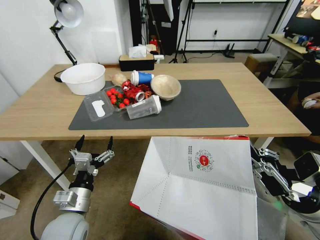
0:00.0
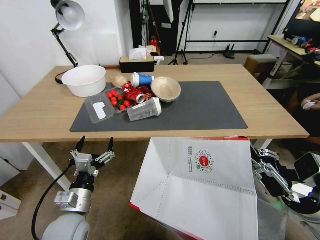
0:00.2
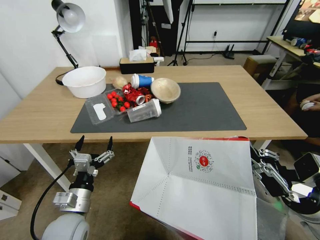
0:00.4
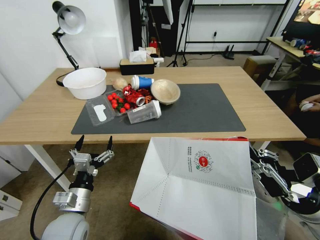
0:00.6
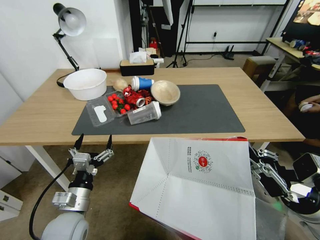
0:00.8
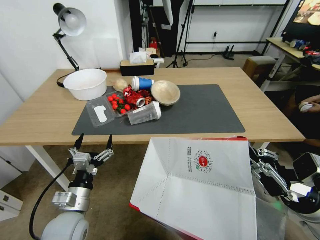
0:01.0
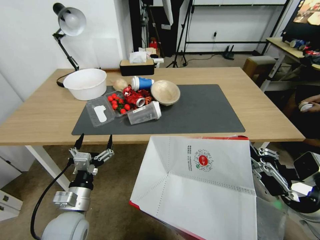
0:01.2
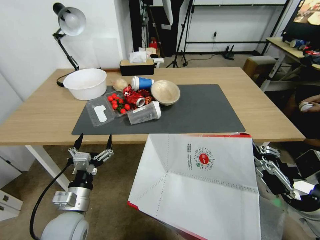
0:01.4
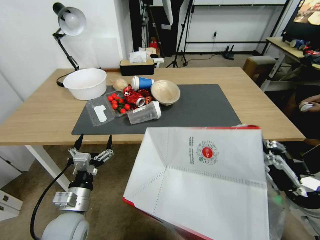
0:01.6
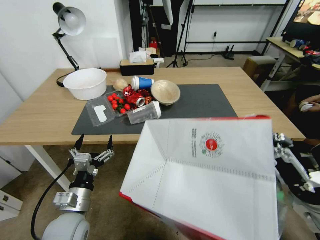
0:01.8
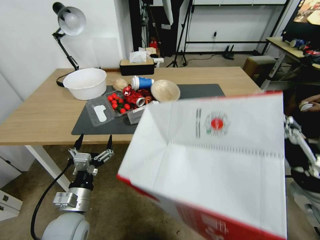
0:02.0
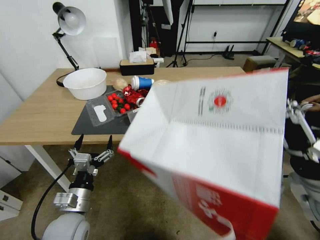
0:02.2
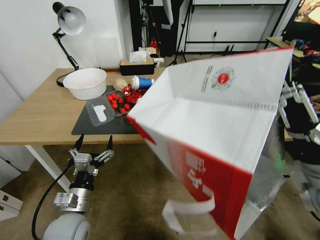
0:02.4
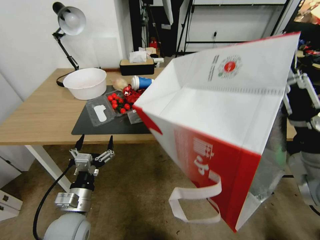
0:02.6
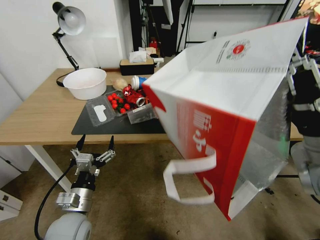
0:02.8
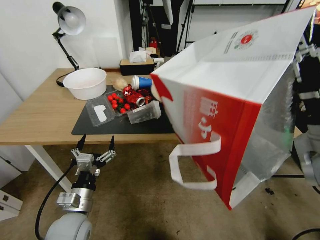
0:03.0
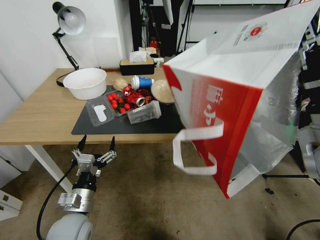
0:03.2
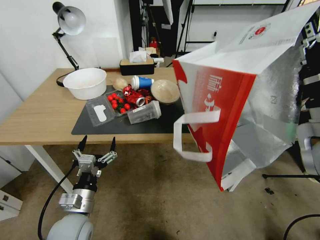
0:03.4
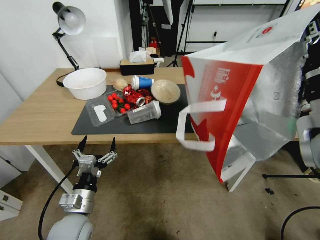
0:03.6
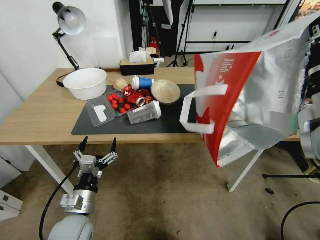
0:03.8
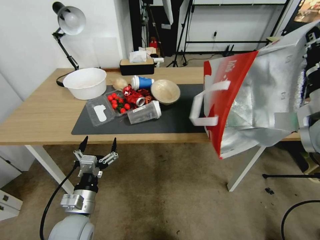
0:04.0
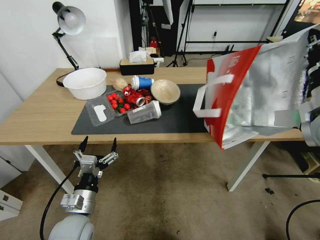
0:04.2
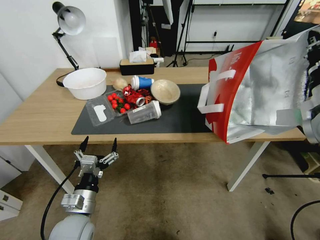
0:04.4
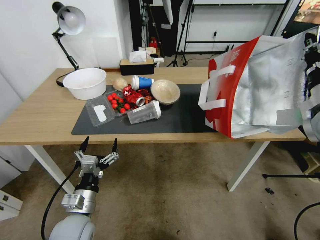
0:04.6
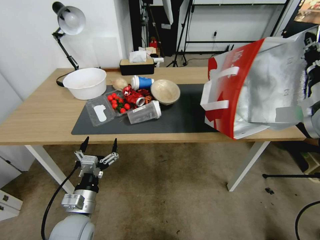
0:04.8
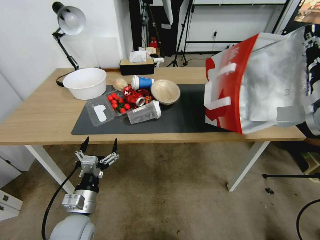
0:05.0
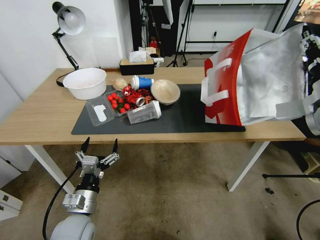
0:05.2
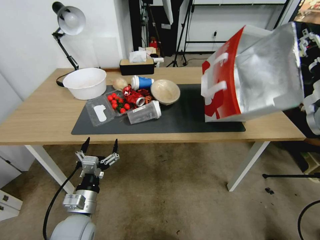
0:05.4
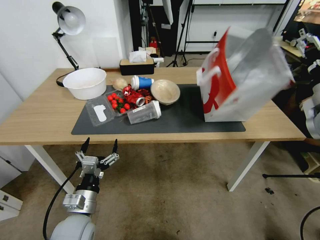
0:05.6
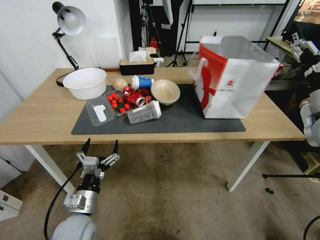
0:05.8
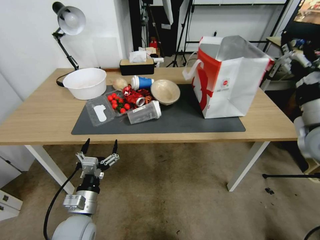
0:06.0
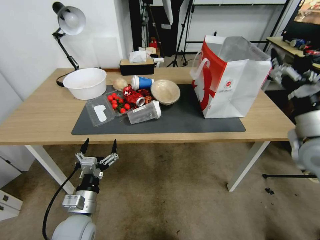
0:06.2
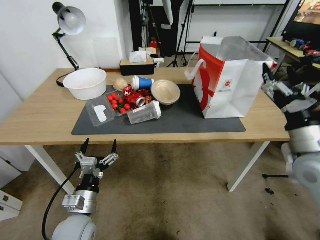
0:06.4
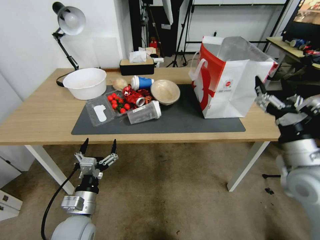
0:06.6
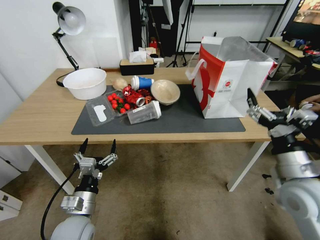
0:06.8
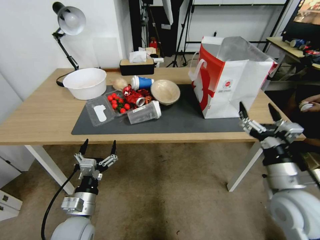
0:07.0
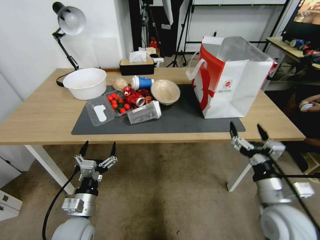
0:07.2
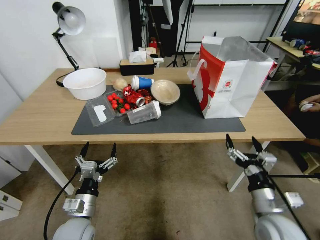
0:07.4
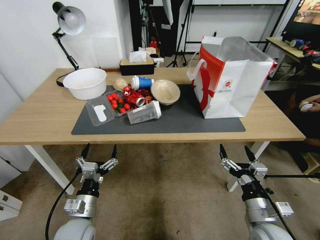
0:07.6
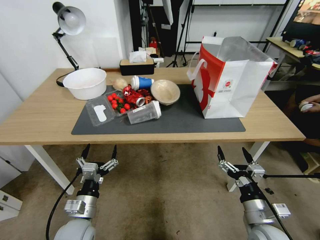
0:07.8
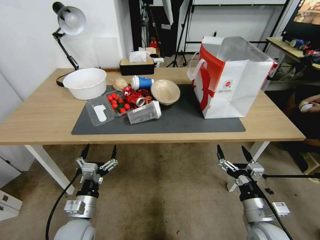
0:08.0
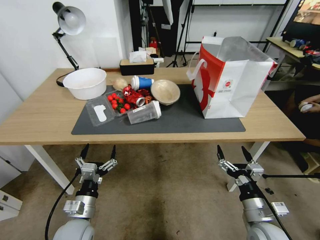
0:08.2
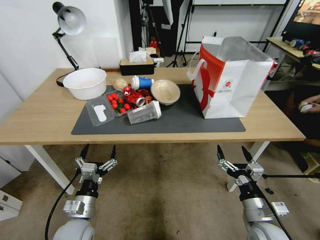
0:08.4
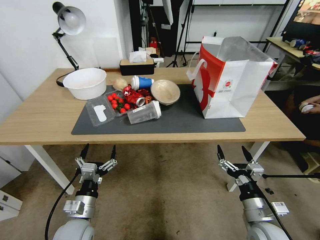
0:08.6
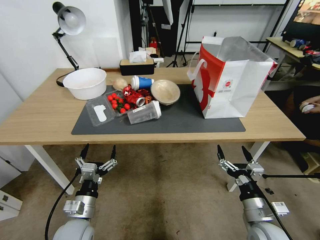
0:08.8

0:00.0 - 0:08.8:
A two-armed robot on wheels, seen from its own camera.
Task of the whole recording: Pick up the food delivery bag from the floor and place it on the table.
0:01.4 - 0:03.0: The right gripper heads upward, covering some 10 cm.
0:03.0 - 0:04.4: The right gripper goes some 10 cm forward and to the right.
0:04.4 - 0:05.8: The right gripper opens its fingers.
0:05.8 - 0:07.4: The right gripper is displaced downward, backward and to the left by some 30 cm.
0:07.4 - 0:08.8: There are only small adjustments of the grippers.

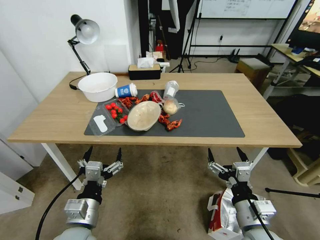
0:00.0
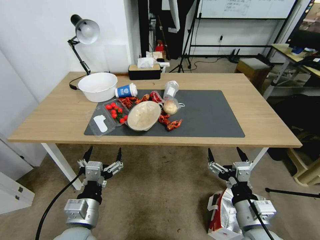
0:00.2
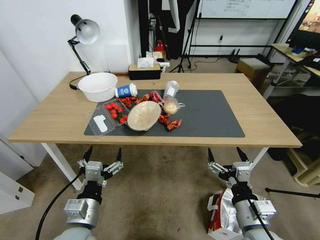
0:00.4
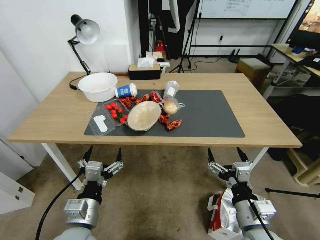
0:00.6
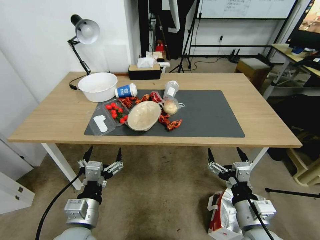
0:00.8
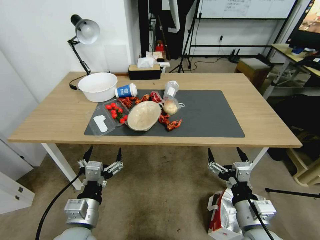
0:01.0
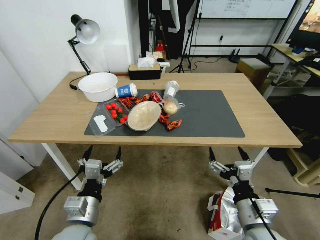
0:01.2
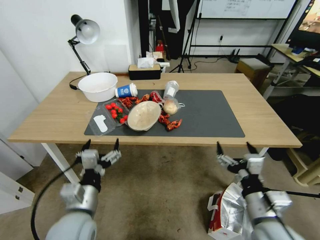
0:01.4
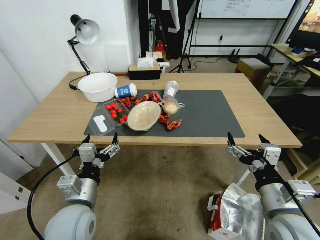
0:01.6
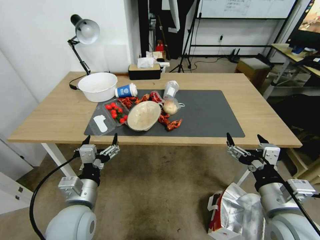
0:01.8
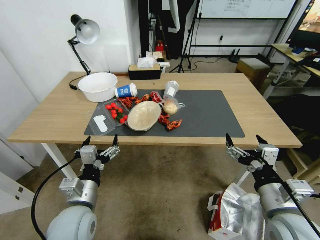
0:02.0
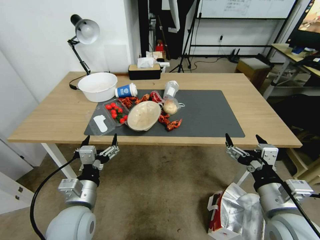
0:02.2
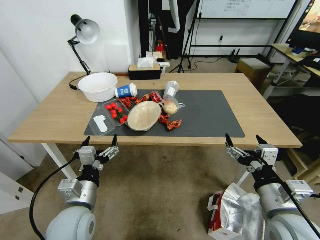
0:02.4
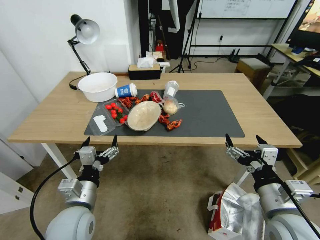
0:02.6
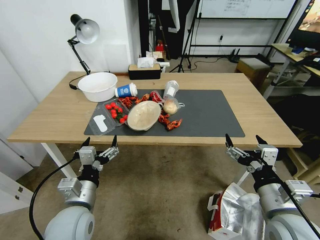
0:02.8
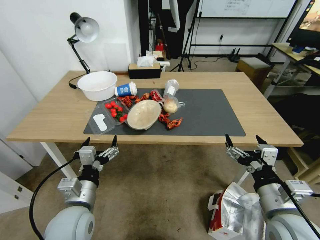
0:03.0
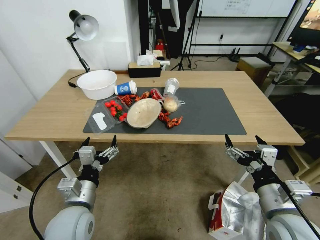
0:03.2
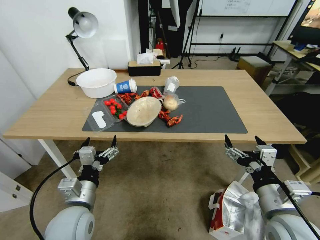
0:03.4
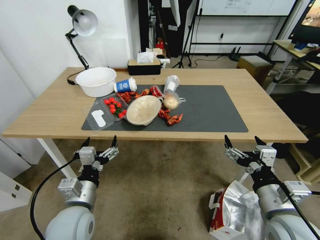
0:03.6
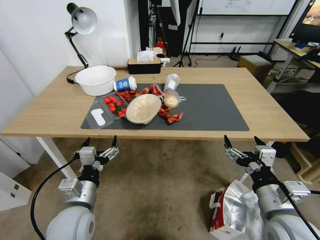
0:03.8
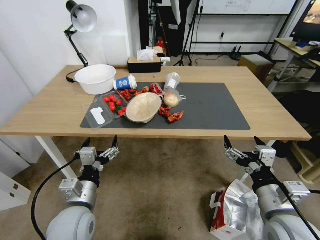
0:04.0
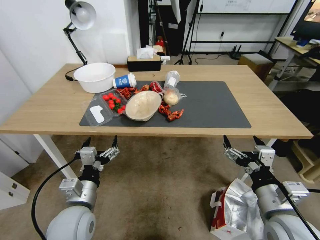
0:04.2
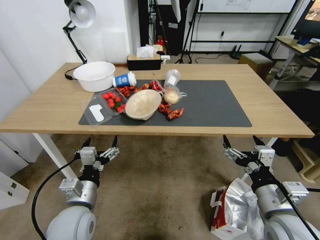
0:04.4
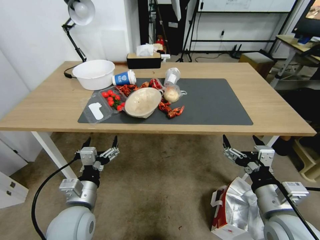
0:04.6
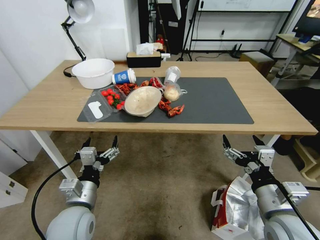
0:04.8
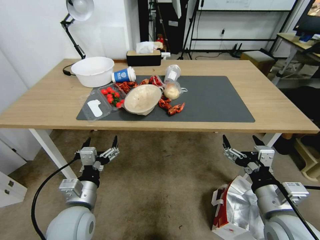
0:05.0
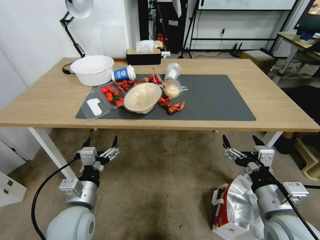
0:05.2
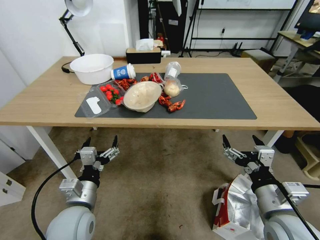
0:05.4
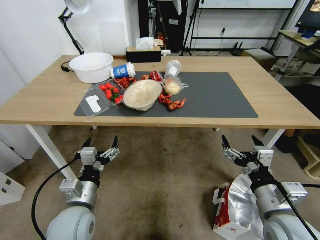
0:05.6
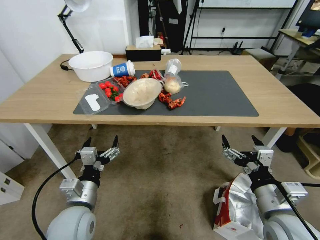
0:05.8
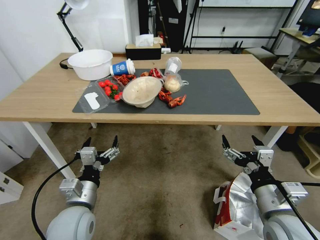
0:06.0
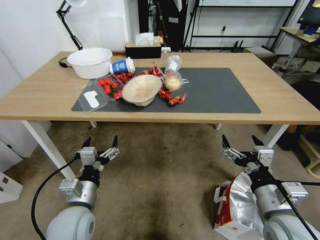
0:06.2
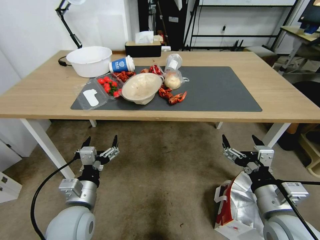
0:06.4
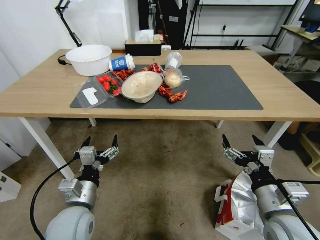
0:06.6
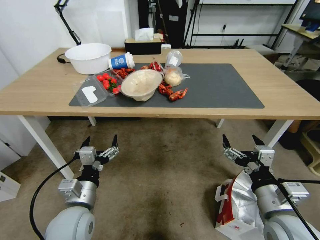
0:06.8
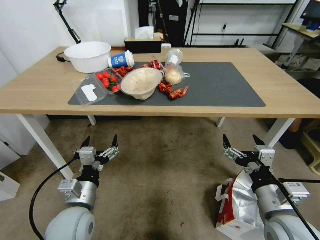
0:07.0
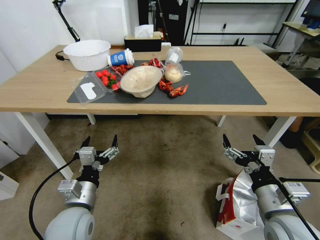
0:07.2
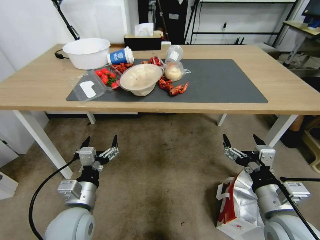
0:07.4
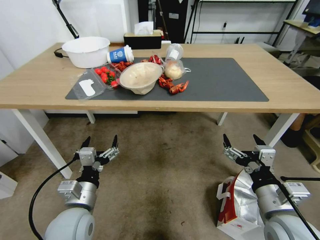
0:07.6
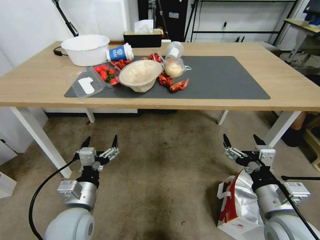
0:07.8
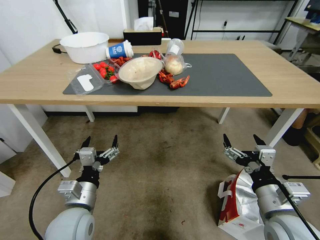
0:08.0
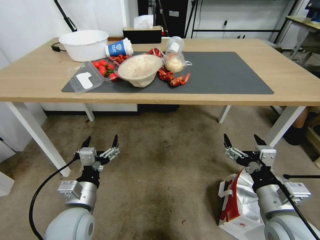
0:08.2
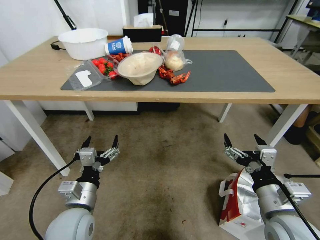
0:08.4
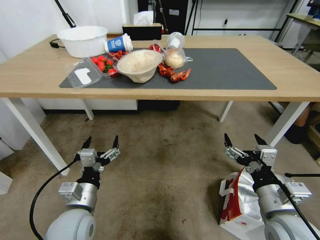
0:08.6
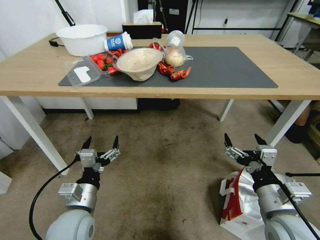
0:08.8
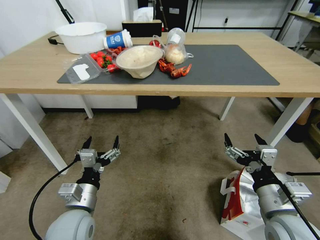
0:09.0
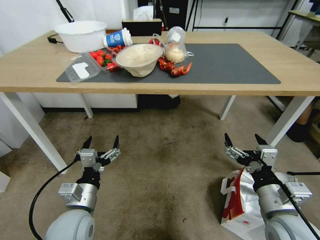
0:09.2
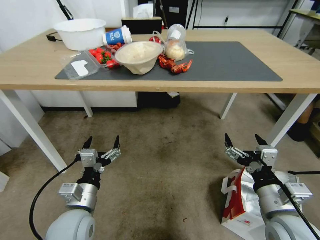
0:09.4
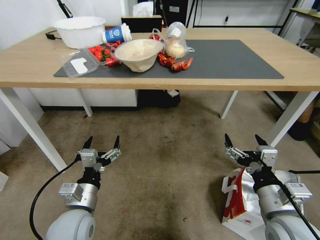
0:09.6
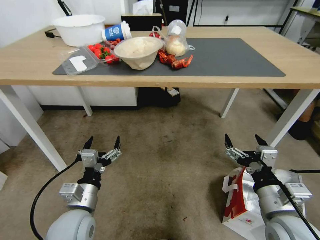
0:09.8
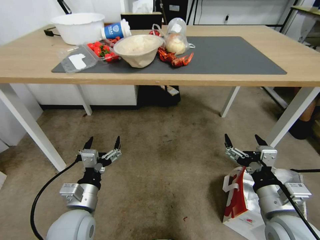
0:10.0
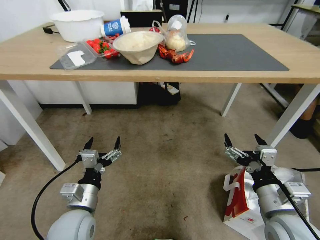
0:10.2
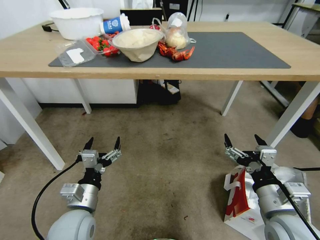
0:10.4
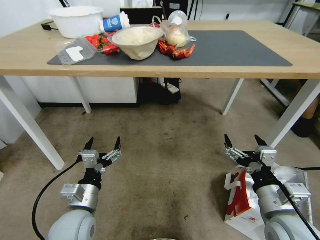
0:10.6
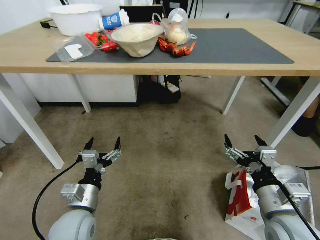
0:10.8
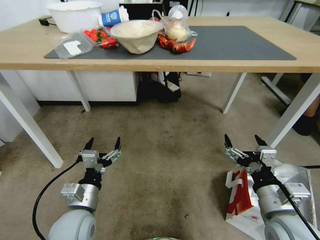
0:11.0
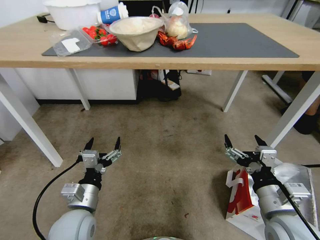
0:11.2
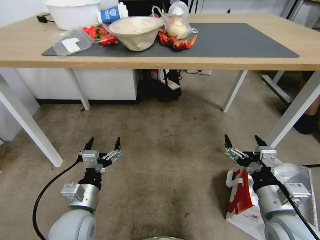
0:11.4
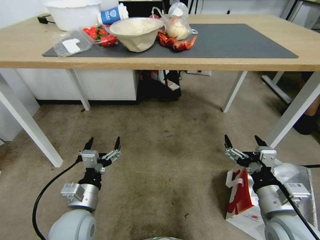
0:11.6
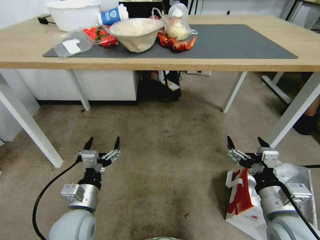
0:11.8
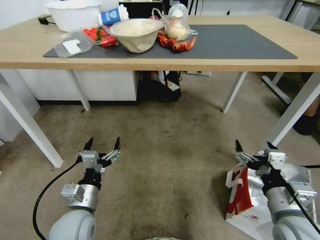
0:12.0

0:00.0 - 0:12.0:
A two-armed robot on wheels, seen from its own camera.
Task of the whole recording: Pick up the food delivery bag from the floor and place it on the table.
0:01.6 - 0:03.0: There are only small adjustments of the grippers.

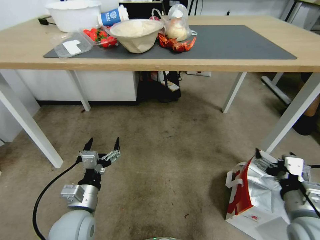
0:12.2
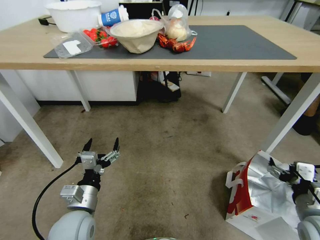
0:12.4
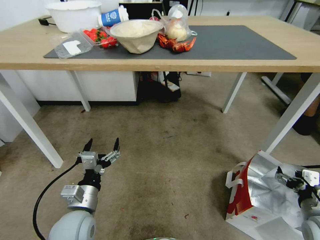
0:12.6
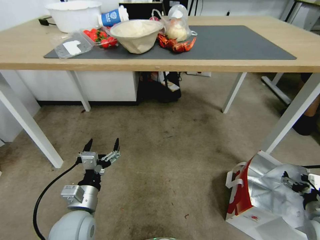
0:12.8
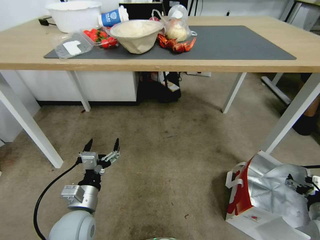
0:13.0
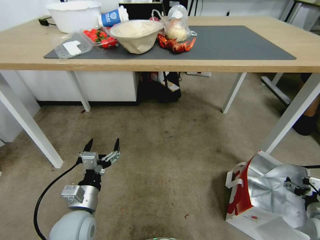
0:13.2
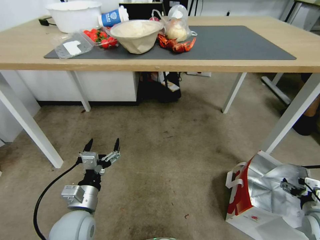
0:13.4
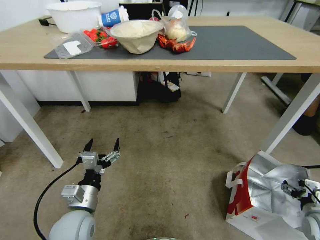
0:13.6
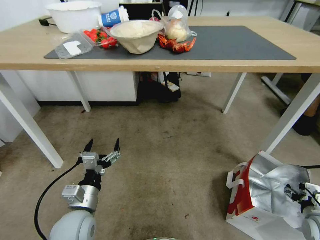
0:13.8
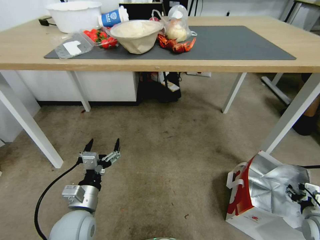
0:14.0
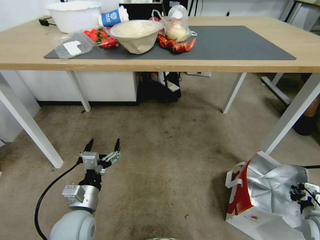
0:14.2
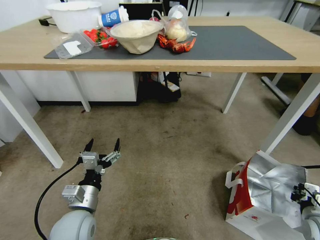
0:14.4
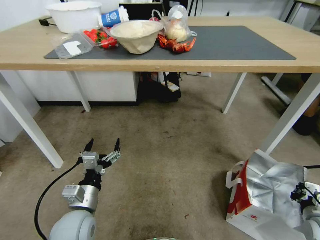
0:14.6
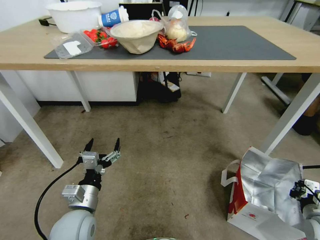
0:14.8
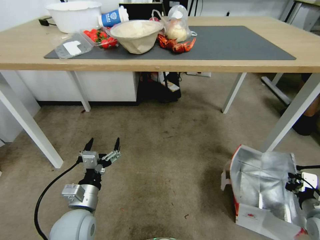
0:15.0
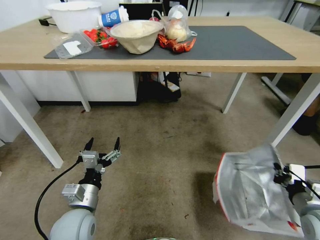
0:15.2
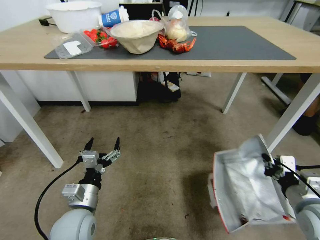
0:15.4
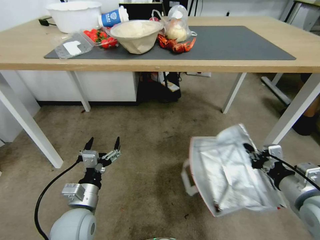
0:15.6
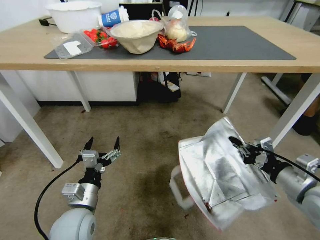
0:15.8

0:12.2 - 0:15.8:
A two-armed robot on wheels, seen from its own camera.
Task of the whole recording: Pick up the food delivery bag from the floor and place it on the table.
0:12.2 - 0:14.0: The right gripper shifts roughly 20 cm to the right and downward, and closes up.
0:14.0 - 0:15.8: The right gripper travels upward and to the left by about 20 cm, and closes up.
